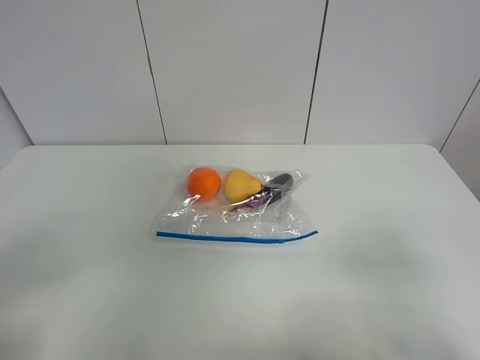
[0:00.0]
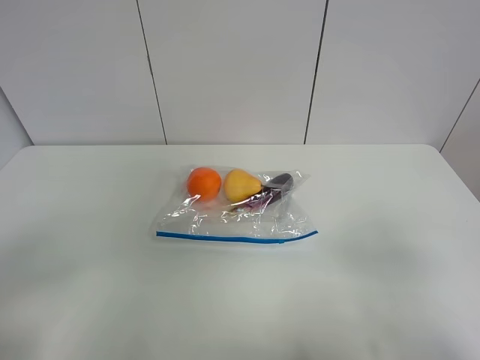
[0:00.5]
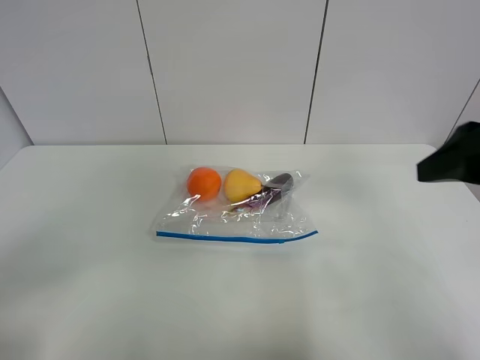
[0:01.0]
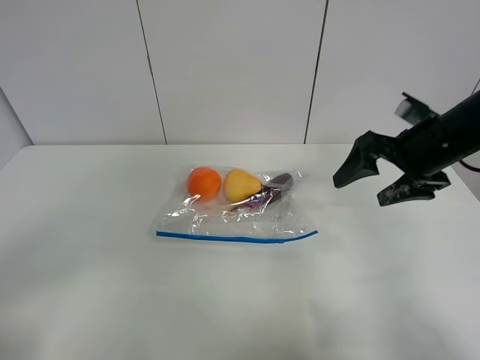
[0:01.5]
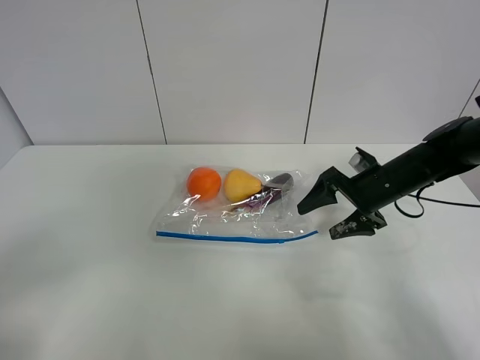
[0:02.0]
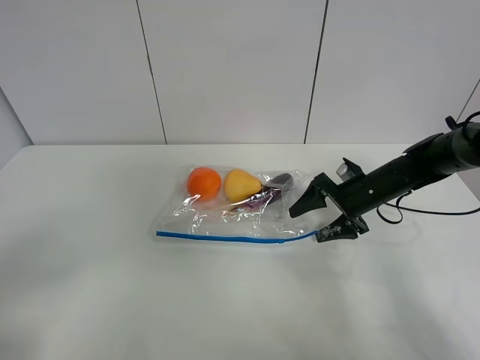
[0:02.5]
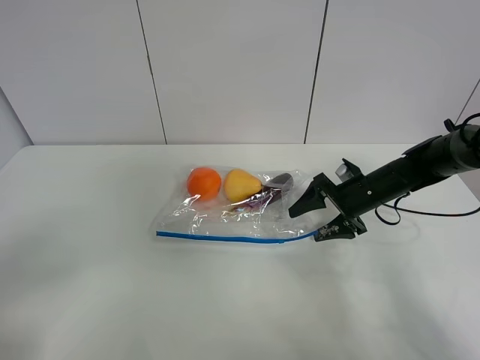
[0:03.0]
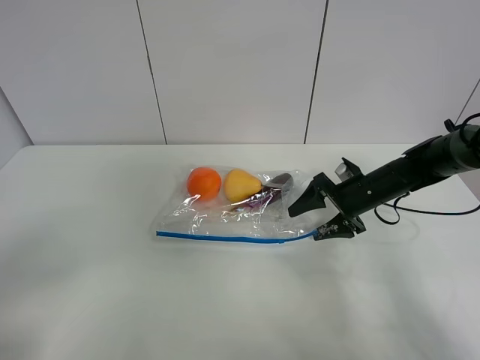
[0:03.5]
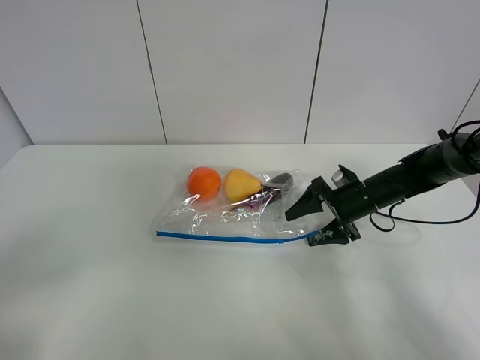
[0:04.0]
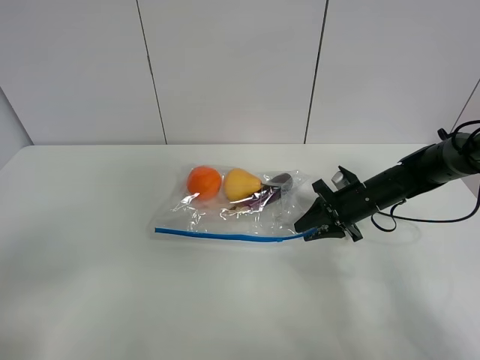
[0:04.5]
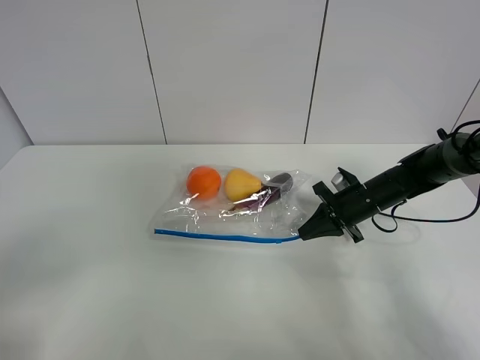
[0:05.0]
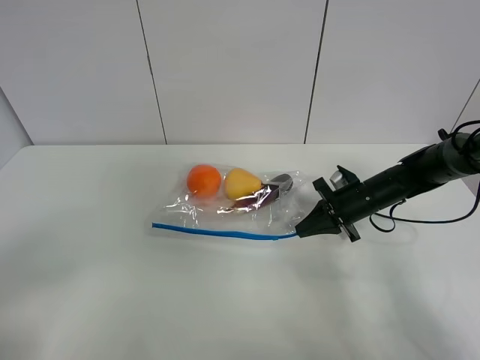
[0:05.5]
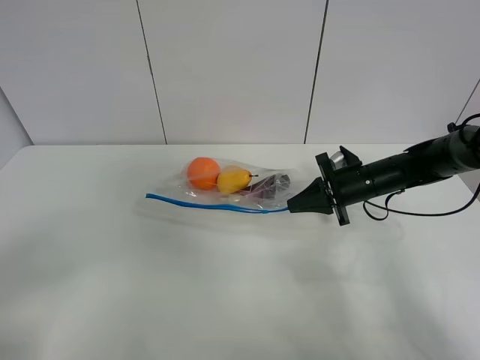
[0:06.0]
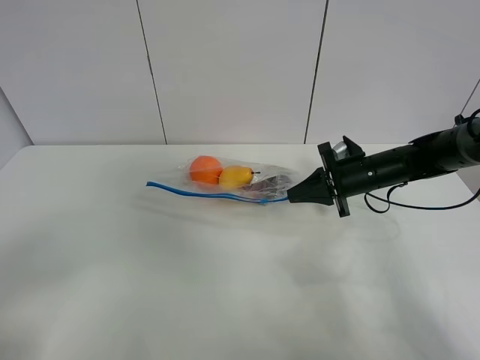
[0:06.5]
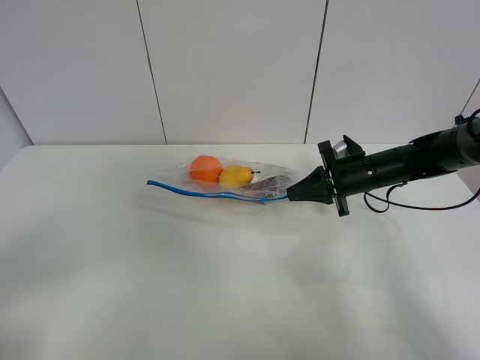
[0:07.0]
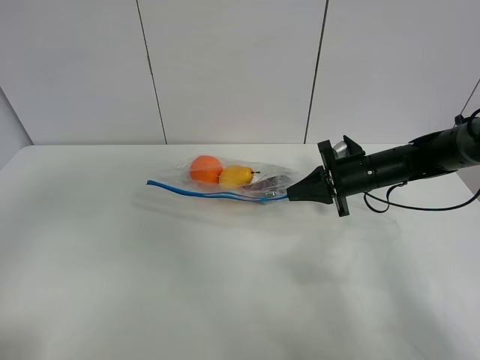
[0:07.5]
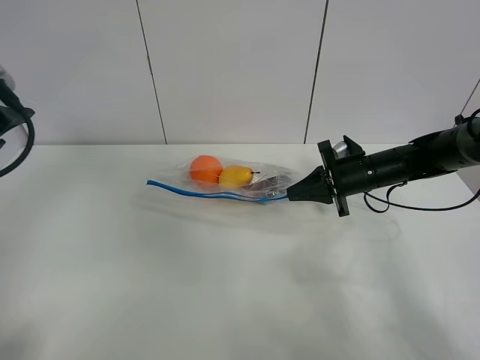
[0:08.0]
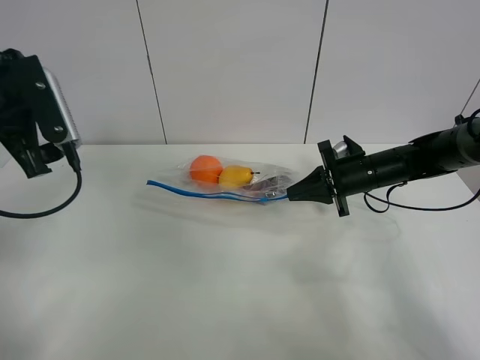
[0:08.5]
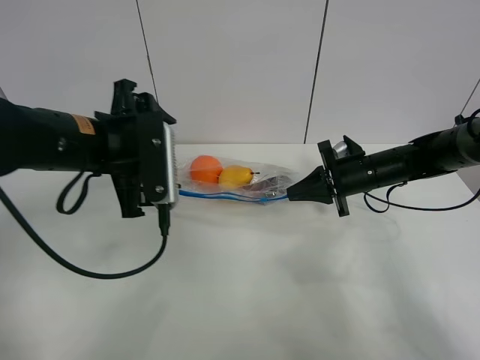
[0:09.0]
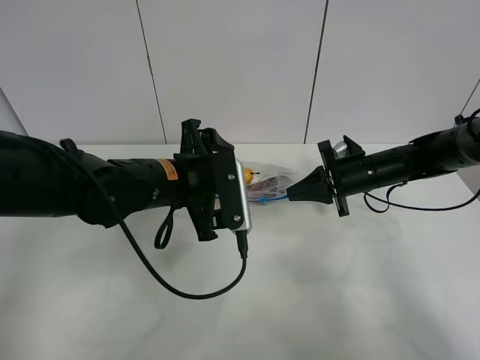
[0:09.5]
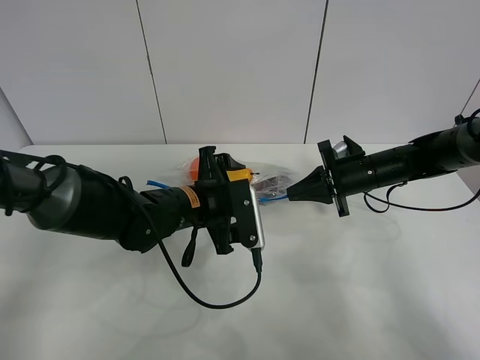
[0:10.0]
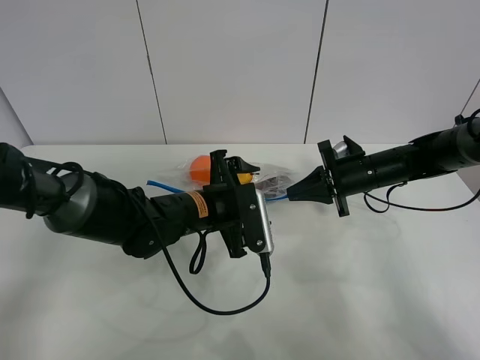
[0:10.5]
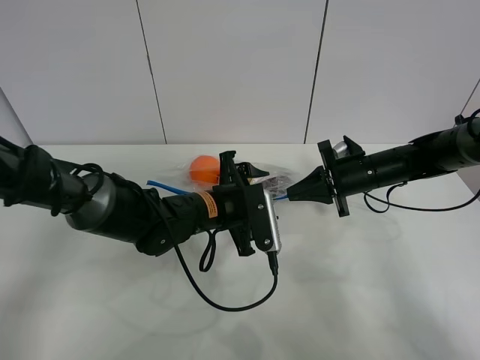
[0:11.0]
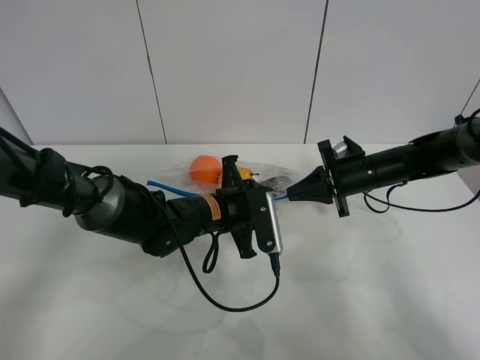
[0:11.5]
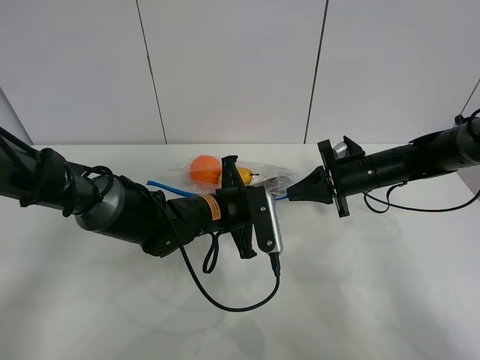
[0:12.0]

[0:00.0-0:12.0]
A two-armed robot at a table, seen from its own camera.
Step, 0:00.0 to 0:04.5: Grasp the fruit bag with right gripper.
Step, 0:05.0 to 0:06.5: Lift the fruit bag with your right gripper.
0:00.0 to 0:02.0: The right gripper is displaced forward and downward by about 40 cm.
0:02.0 to 0:04.0: The right gripper shifts by approximately 5 cm.
0:04.0 to 0:06.0: The right gripper closes.
0:06.0 to 0:08.0: The left gripper moves forward, about 25 cm.
0:08.0 to 0:10.0: The left gripper heads to the right and downward, covering approximately 30 cm.
0:10.0 to 0:12.0: The left gripper closes its fingers.

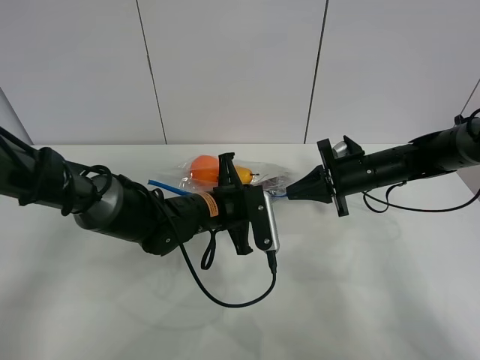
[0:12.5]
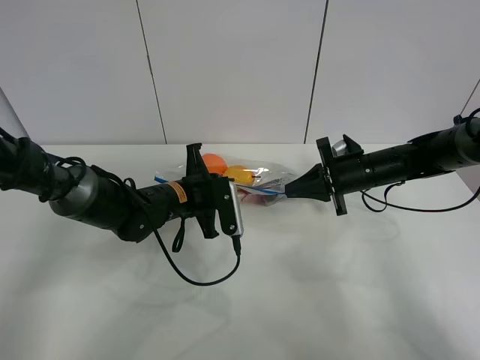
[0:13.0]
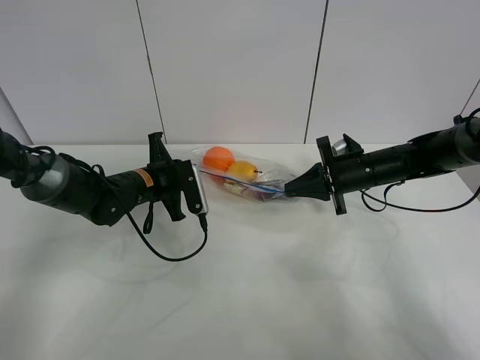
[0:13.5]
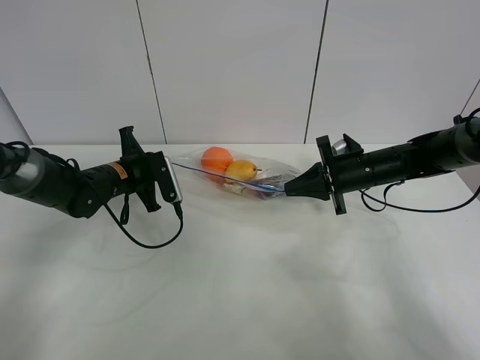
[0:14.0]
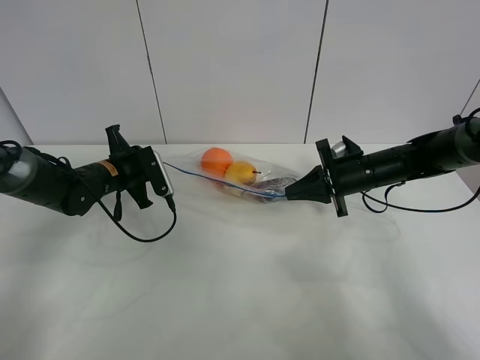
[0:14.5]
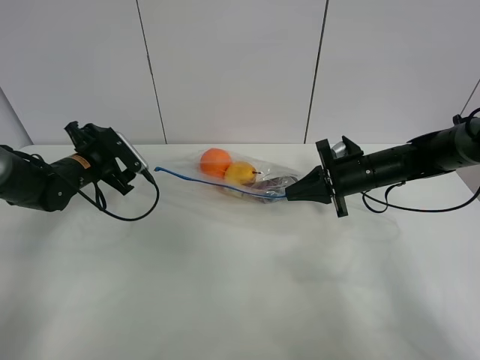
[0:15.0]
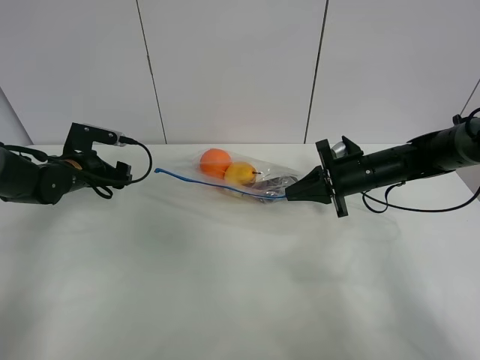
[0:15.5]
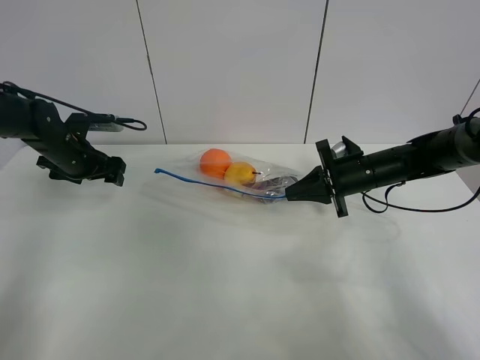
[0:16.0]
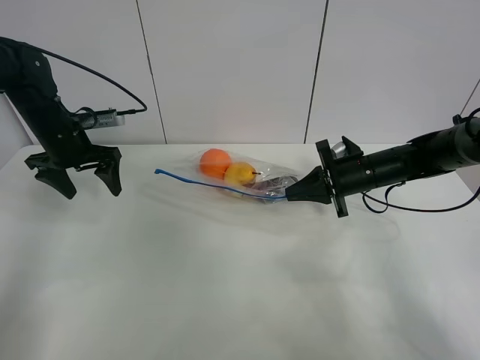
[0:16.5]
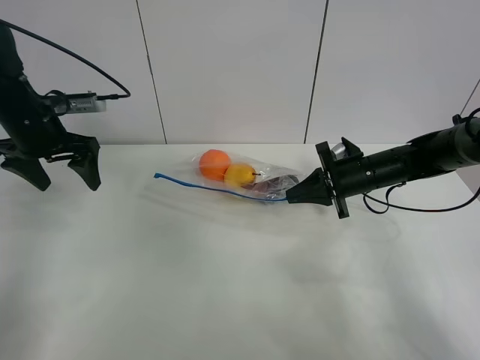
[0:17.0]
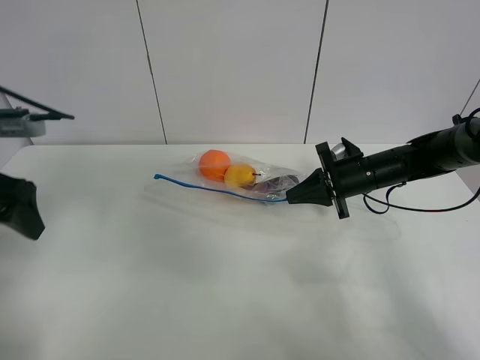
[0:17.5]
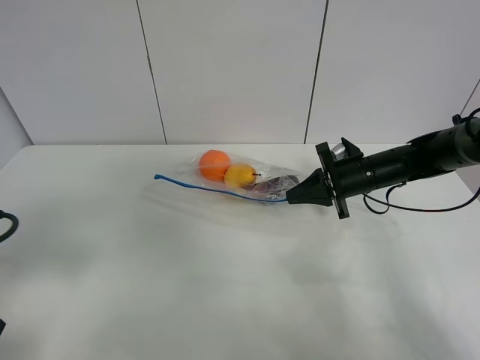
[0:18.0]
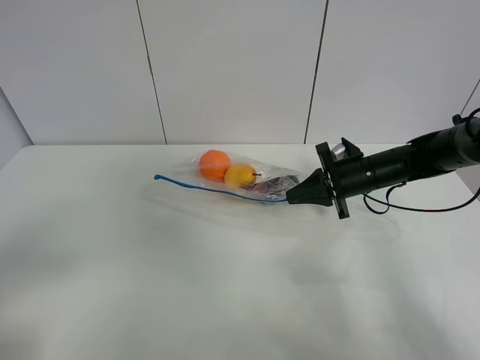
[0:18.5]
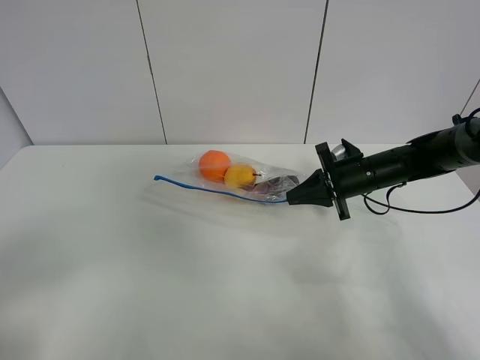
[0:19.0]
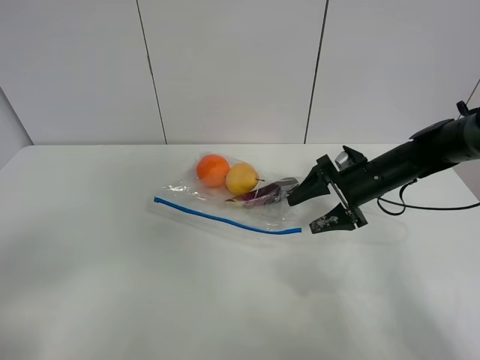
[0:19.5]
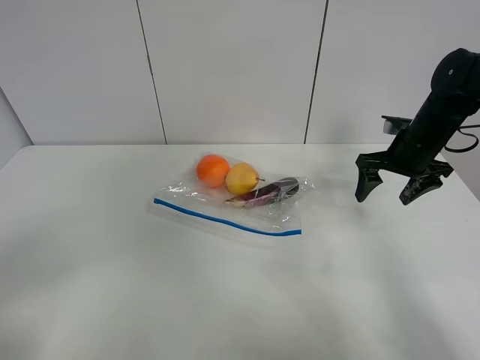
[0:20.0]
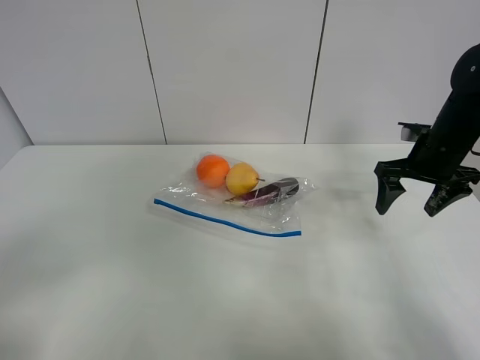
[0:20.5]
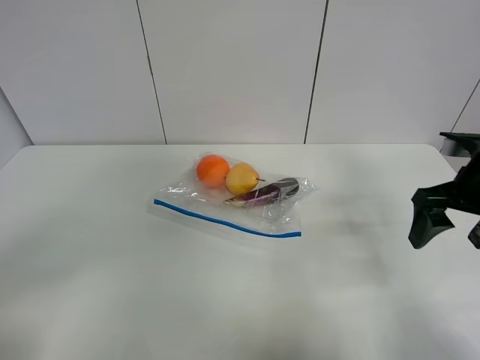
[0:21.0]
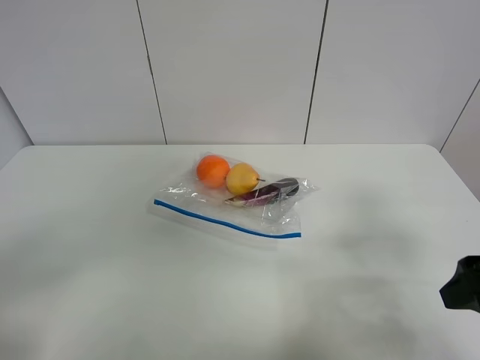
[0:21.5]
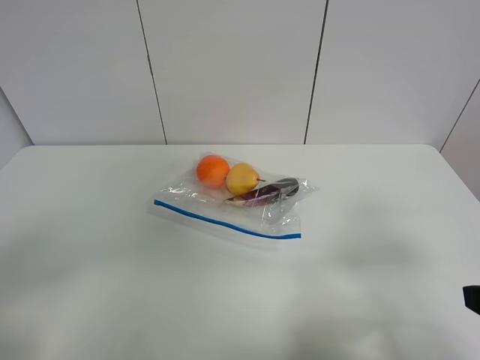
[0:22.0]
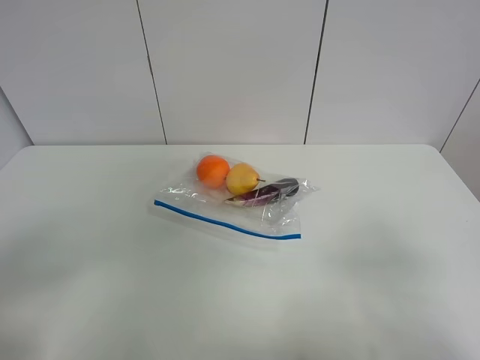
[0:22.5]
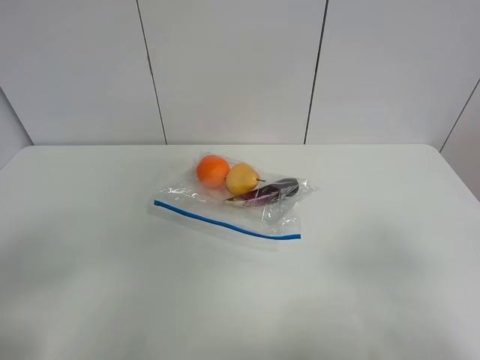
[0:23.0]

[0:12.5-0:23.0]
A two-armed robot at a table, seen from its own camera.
Step, 0:12.5 to 0:14.5: Pull the fruit bag with left gripper.
0:12.5 to 0:14.5: The left gripper is displaced to the left and forward by approximately 20 cm, and opens up.
0:14.5 to 0:16.5: The left gripper shifts roughly 10 cm upward and to the left, and opens its fingers.
0:16.5 to 0:19.0: The left gripper heads backward, covering about 40 cm.
0:19.0 to 0:21.0: The right gripper heads backward, upward and to the right, covering roughly 20 cm, and opens up.
0:21.0 to 0:23.0: The right gripper goes about 25 cm backward.

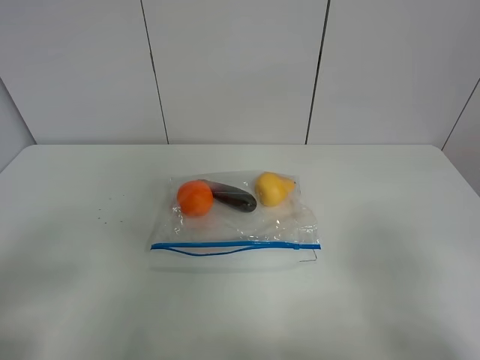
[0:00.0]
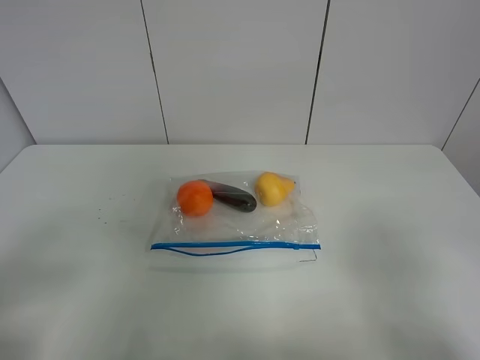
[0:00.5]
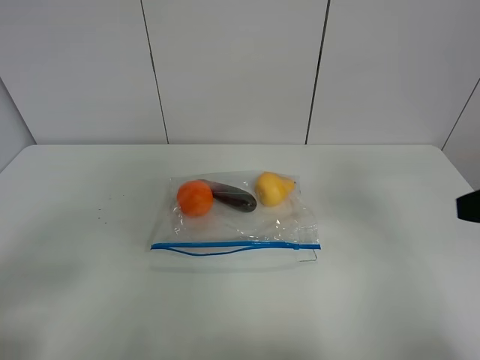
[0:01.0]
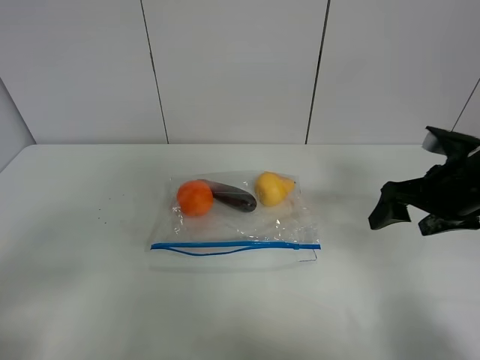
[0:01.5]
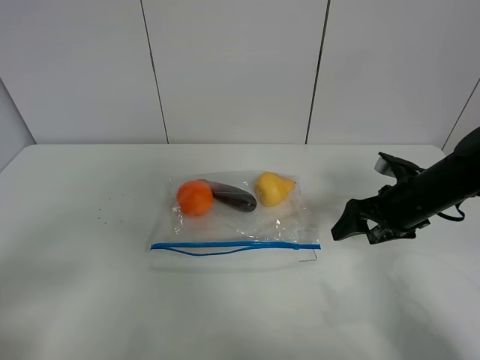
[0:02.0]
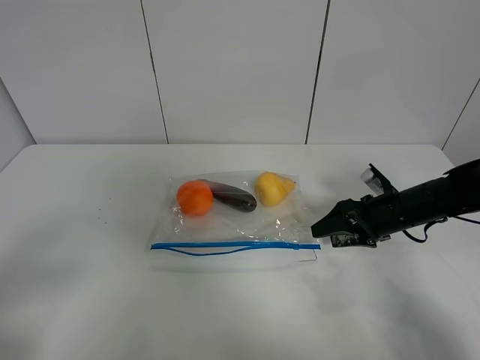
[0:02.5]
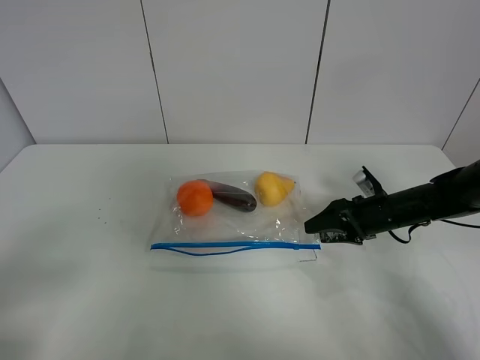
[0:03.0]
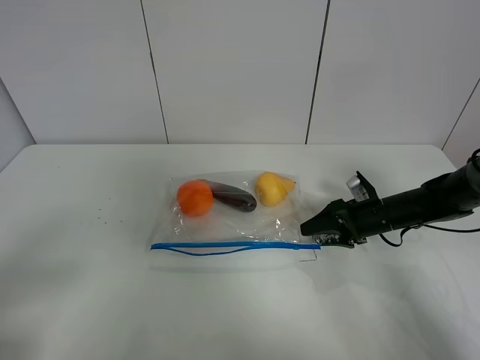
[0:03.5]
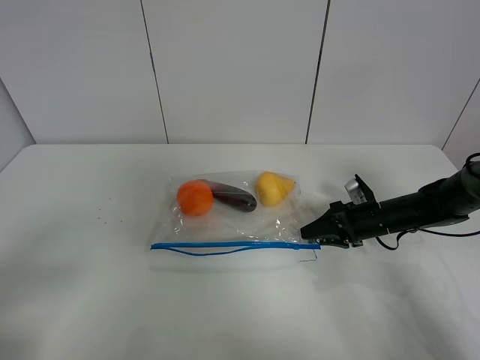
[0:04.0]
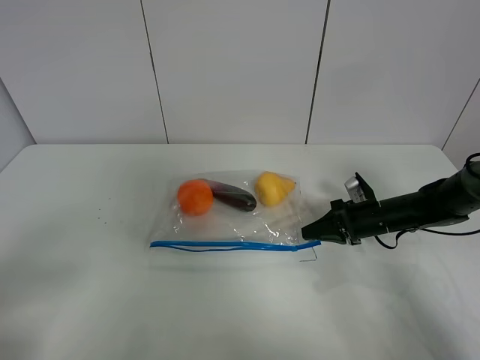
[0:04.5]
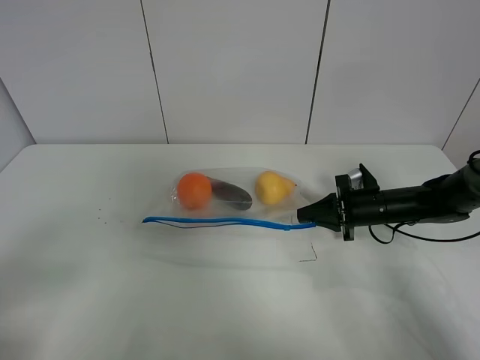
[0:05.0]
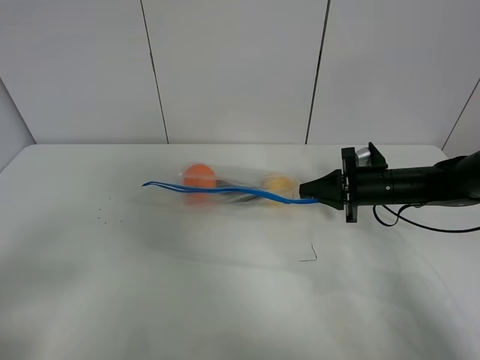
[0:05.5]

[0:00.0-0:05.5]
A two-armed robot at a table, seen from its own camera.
Step, 0:00.0 to 0:04.0: Grasp the fruit bag with right gripper.
0:00.0 to 0:02.0: The right gripper goes approximately 30 cm forward and downward.
0:02.0 to 0:03.5: The right gripper is displaced downward by some 10 cm.
0:03.5 to 0:05.5: The right gripper goes approximately 5 cm upward, and closes up.
